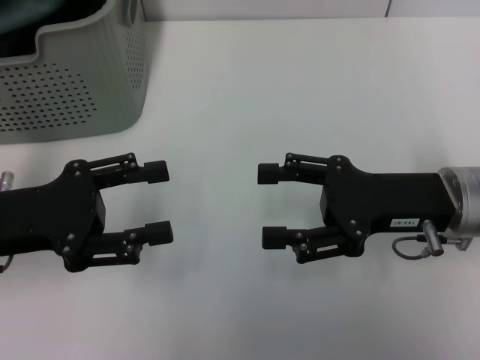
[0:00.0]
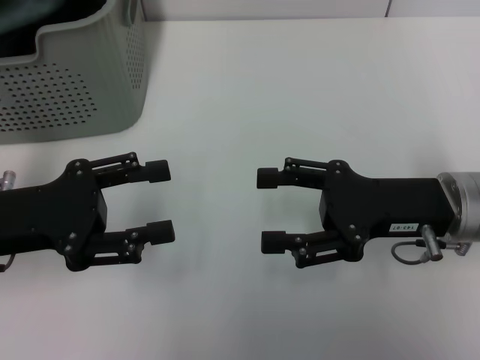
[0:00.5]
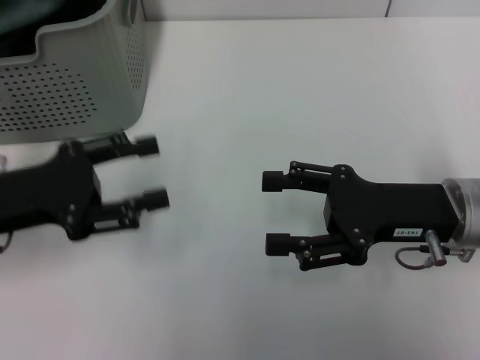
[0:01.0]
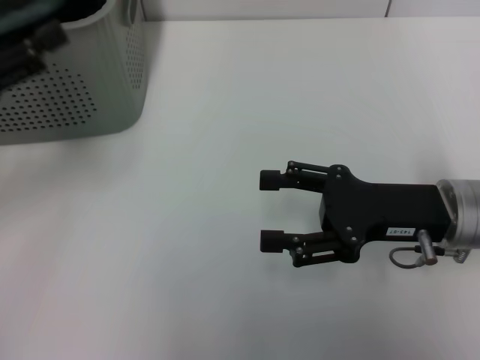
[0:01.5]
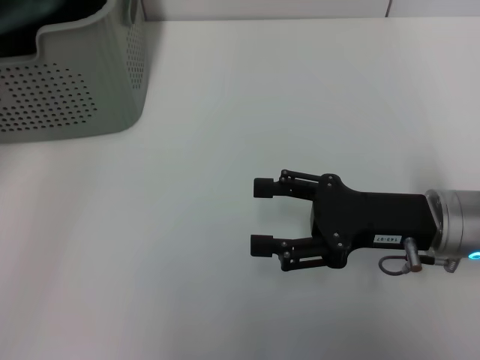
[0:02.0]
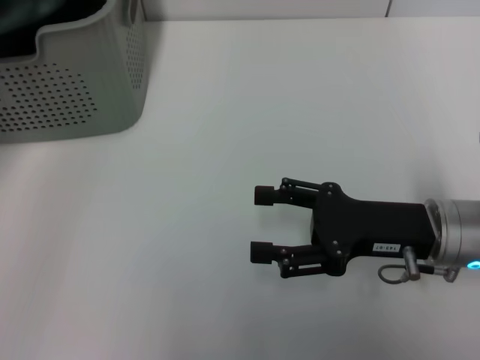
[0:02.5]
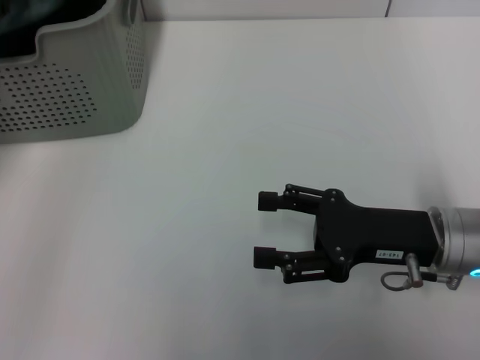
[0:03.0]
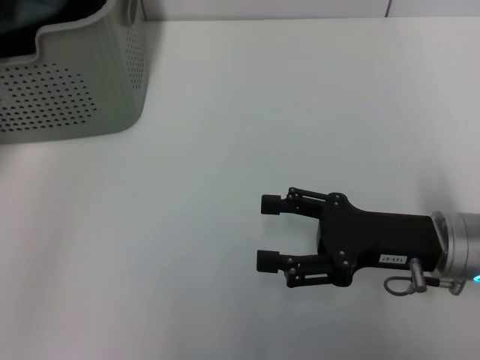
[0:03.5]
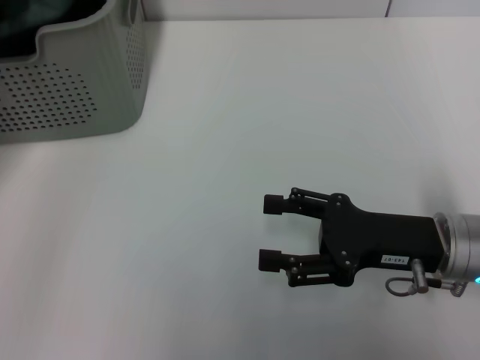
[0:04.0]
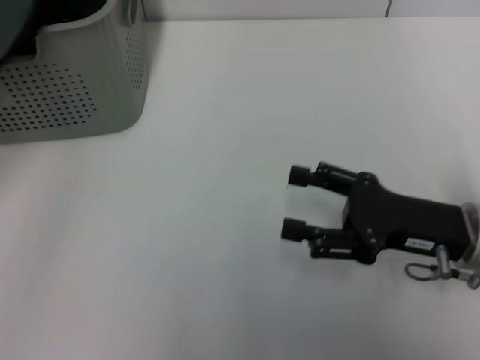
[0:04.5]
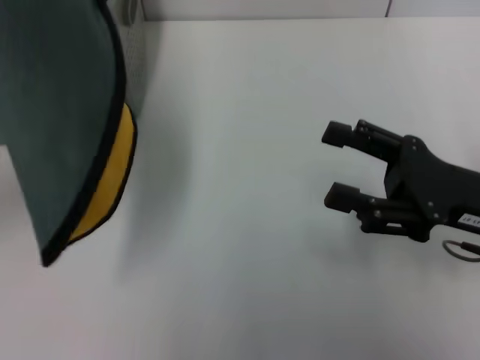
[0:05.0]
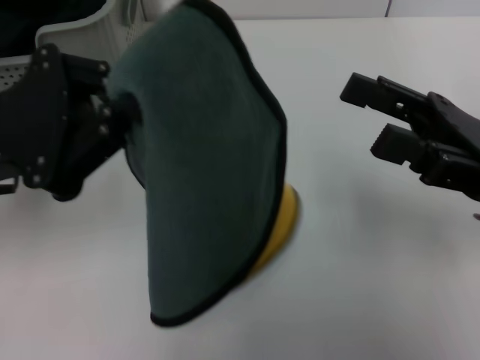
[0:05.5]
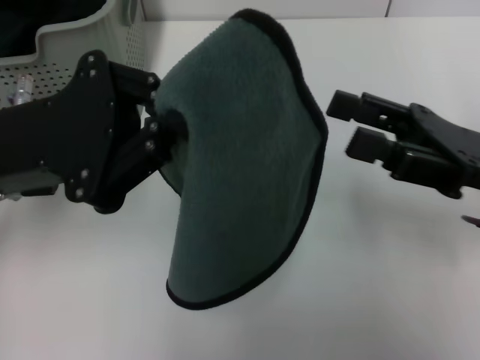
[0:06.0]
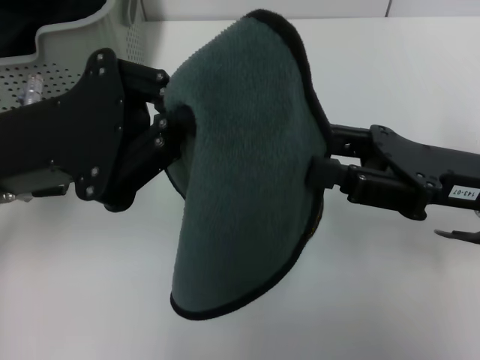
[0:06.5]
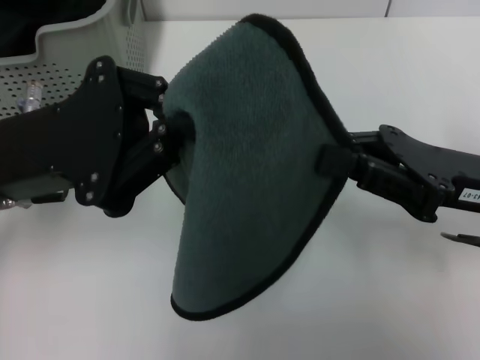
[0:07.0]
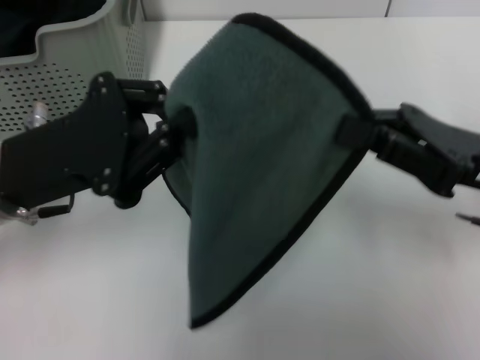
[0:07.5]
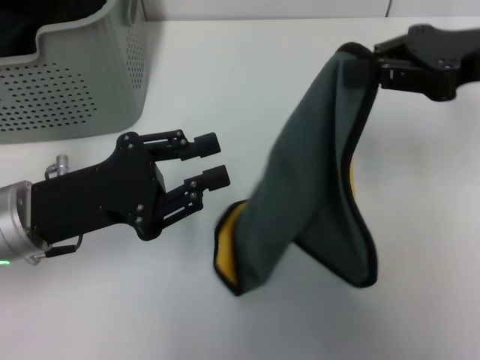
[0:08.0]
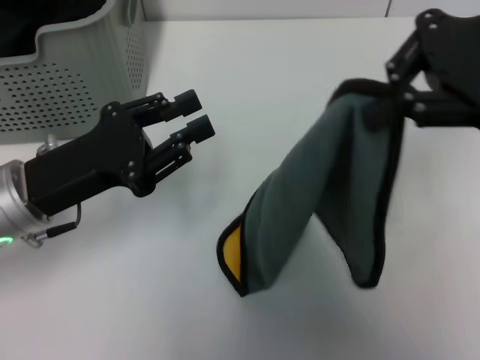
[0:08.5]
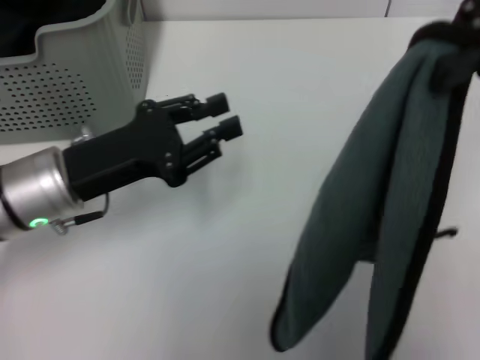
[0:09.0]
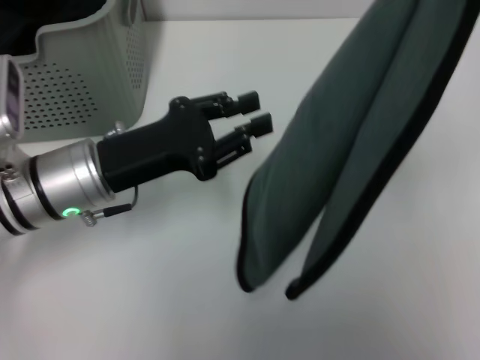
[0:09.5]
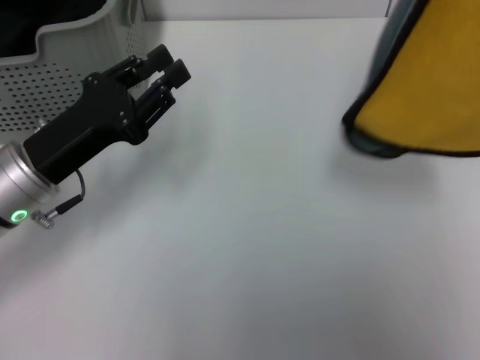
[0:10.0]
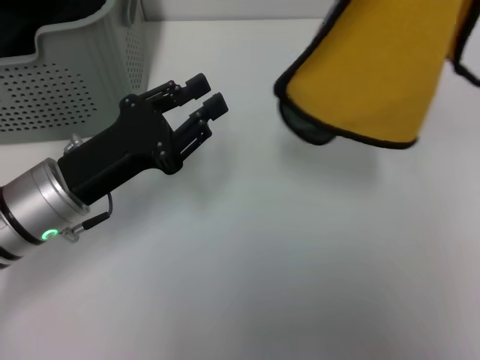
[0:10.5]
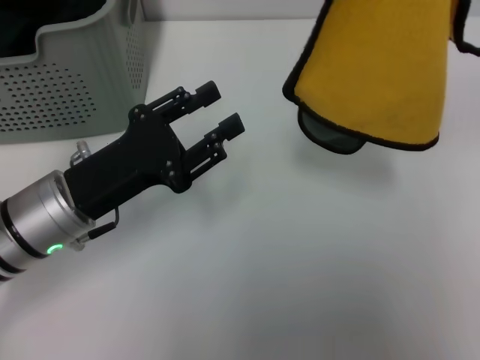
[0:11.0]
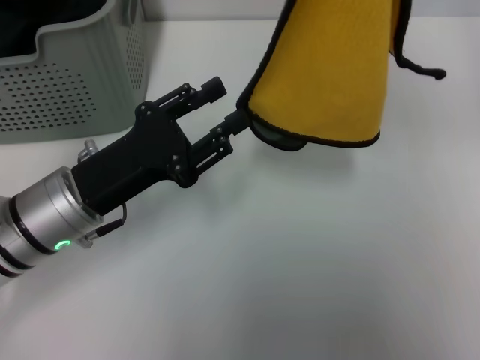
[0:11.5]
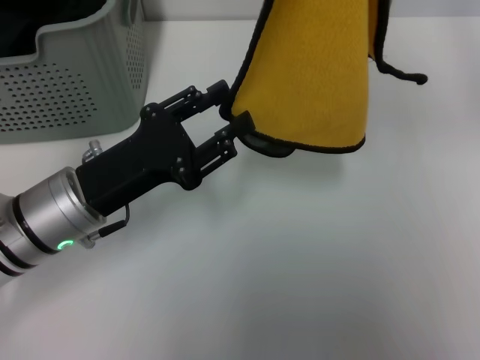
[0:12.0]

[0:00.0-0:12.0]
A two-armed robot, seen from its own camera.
Task of the whole recording: pick up the towel from the storage box and lay it flat on the table.
Step, 0:00.0 to 0:04.0: Pick up a towel with the left gripper.
0:00.0 to 0:02.0: The left gripper goes some 10 cm upward and to the left.
0:02.0 to 0:04.0: The left gripper heads forward, covering some 5 cm, and closes its fingers.
0:04.0 to 0:06.0: The left gripper is displaced to the right and backward by about 10 cm, and closes its fingers. The right gripper shifts roughly 5 cm upward.
0:06.0 to 0:08.0: The right gripper moves upward and forward, roughly 10 cm, and closes its fingers; the left gripper travels downward by roughly 5 cm, and opens up.
0:08.0 to 0:10.0: The right gripper moves upward and to the right, about 10 cm.
0:10.0 to 0:12.0: The right gripper goes about 5 cm to the left.

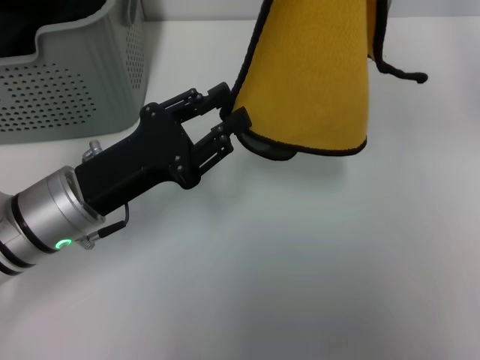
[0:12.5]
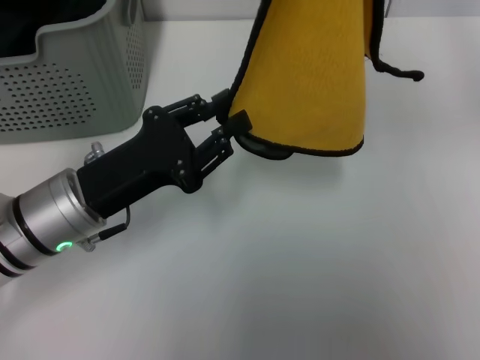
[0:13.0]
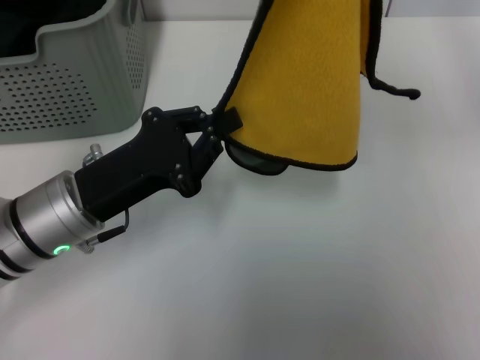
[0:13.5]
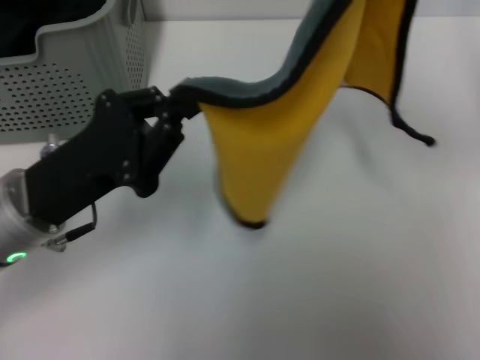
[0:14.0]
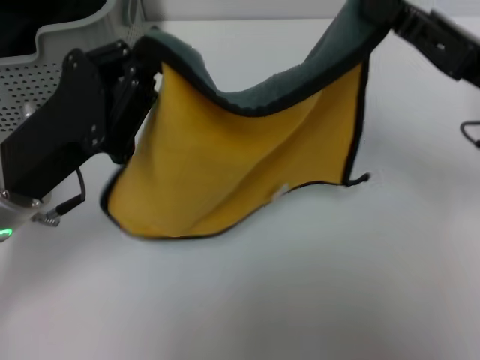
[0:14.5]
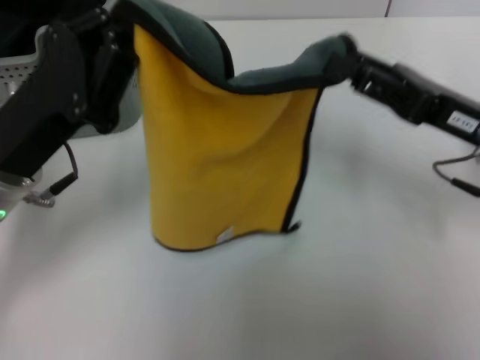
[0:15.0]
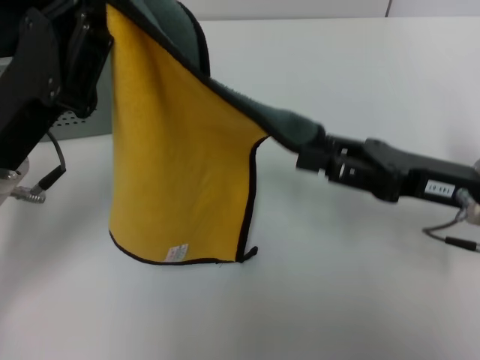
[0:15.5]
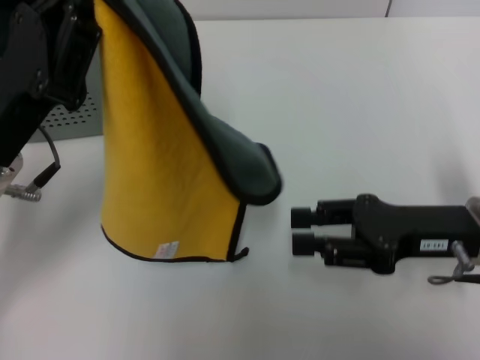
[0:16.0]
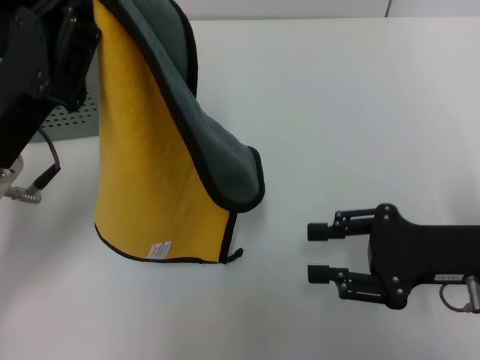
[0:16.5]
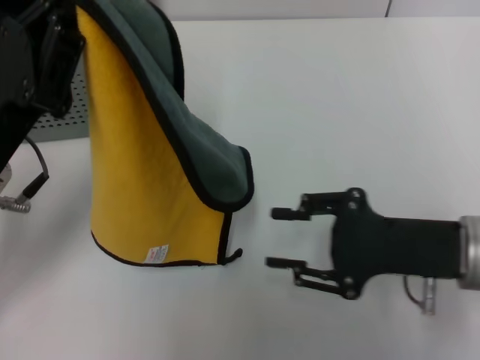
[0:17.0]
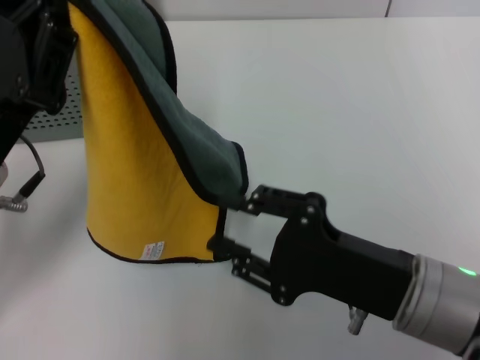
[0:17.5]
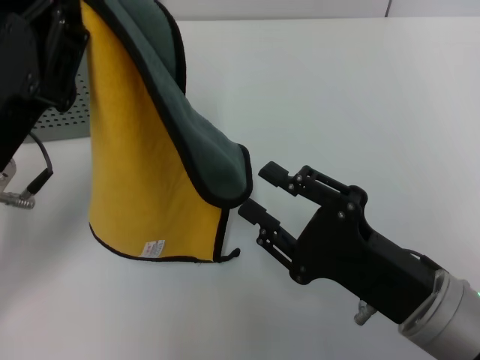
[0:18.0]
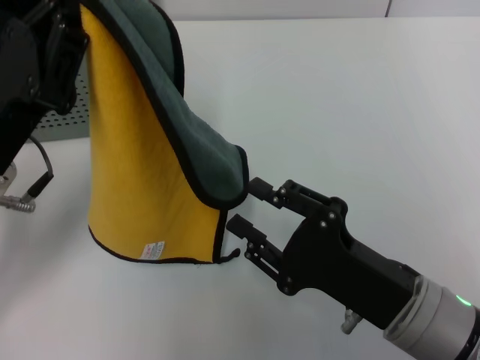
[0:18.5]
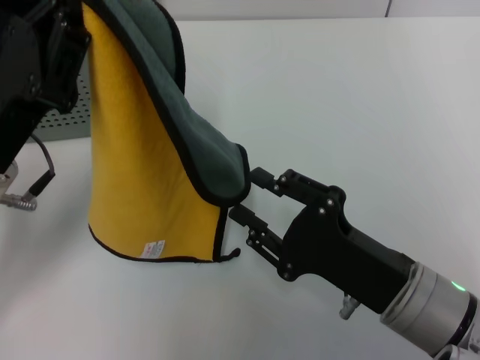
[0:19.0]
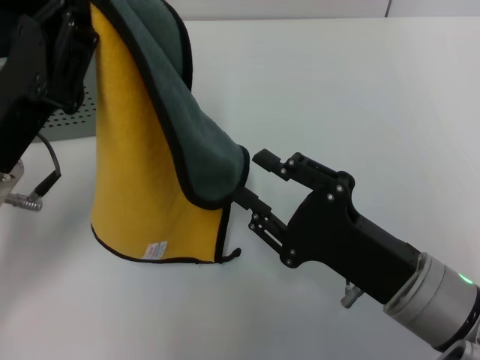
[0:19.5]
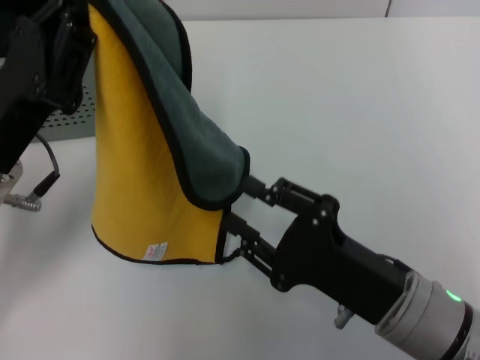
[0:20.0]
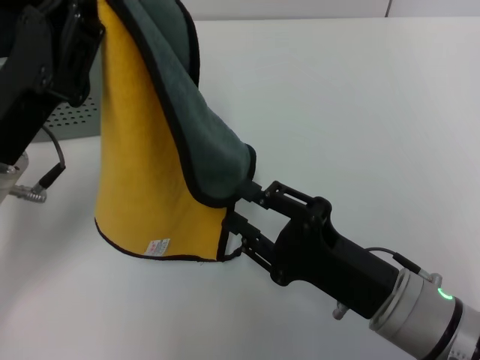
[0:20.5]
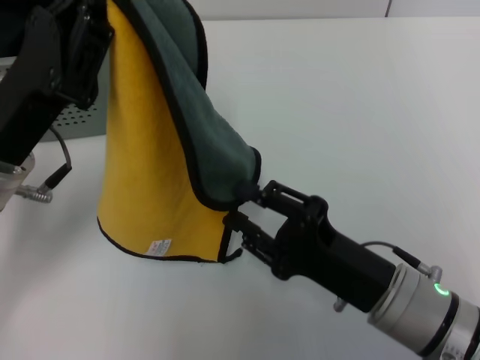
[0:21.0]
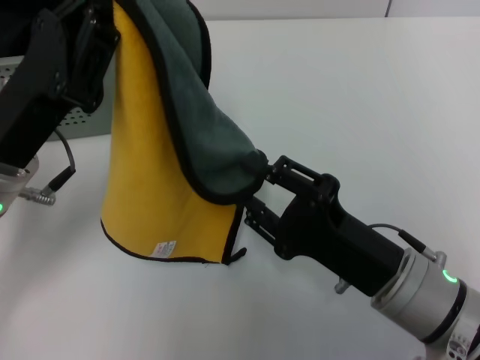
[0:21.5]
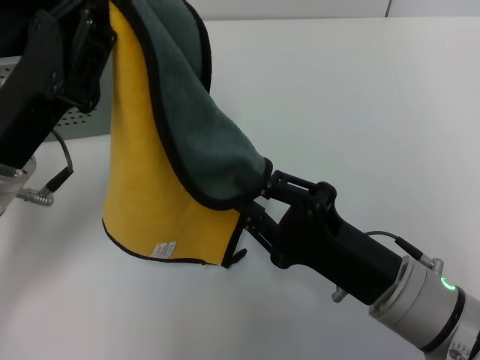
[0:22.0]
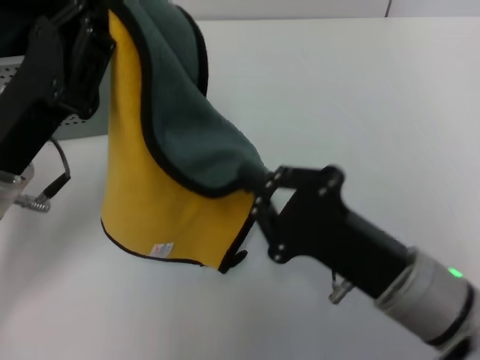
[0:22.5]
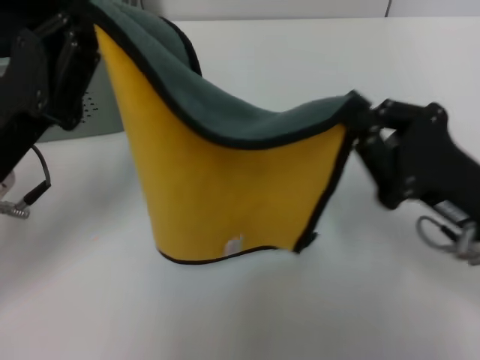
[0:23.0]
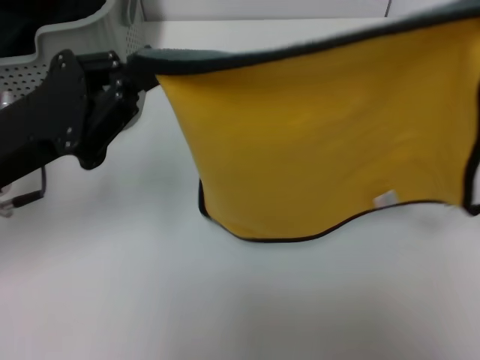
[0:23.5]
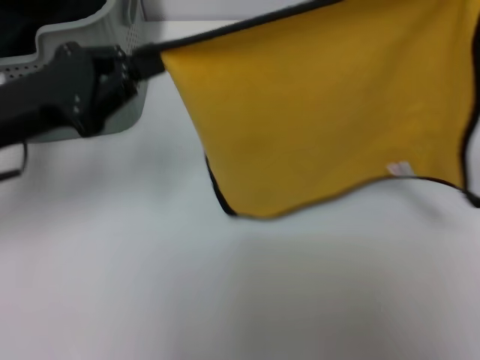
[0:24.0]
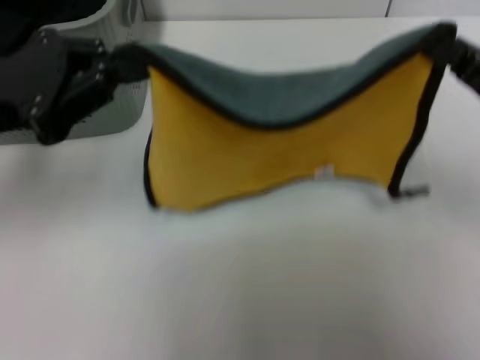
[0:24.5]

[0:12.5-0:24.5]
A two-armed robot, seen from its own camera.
Task of the whole recording: pick up the towel from the storage box and lay it flat on the table.
Step, 0:12.5 to 0:22.0: Spread the towel flat with the left gripper.
0:12.5 to 0:14.5: The left gripper closes up; the right gripper shifts some 15 cm downward.
0:14.5 to 0:16.5: The right gripper heads downward and backward, covering approximately 10 cm, and opens.
0:16.5 to 0:18.5: The right gripper goes about 10 cm to the left and backward.
0:18.5 to 0:22.5: The grippers move only a little.
0:22.5 to 0:24.5: The right gripper is displaced to the right, forward and upward by approximately 20 cm; the left gripper travels upward and to the left by approximately 10 cm.

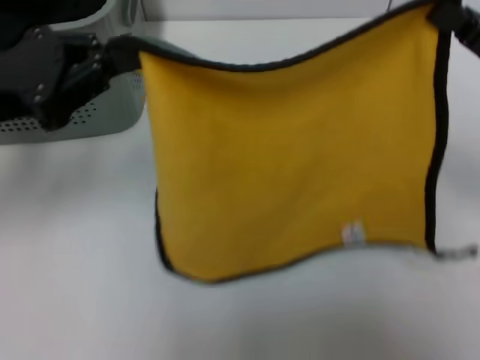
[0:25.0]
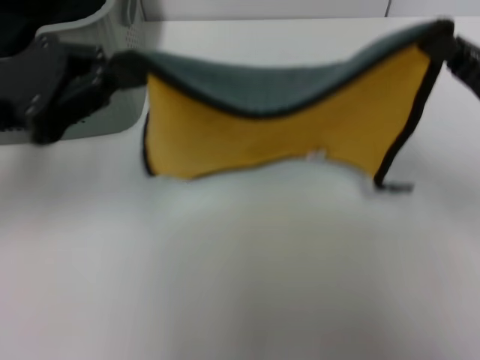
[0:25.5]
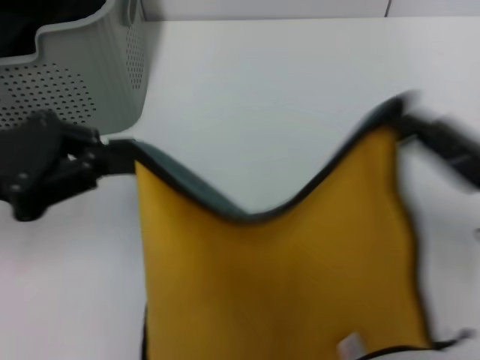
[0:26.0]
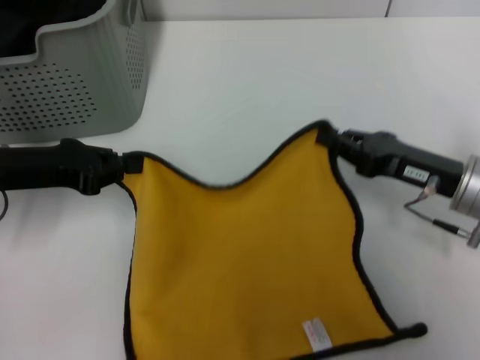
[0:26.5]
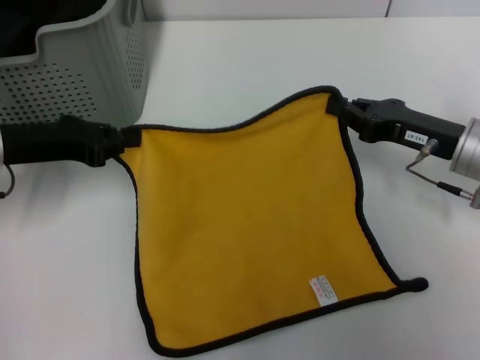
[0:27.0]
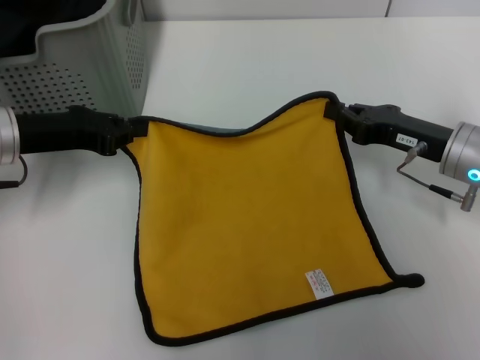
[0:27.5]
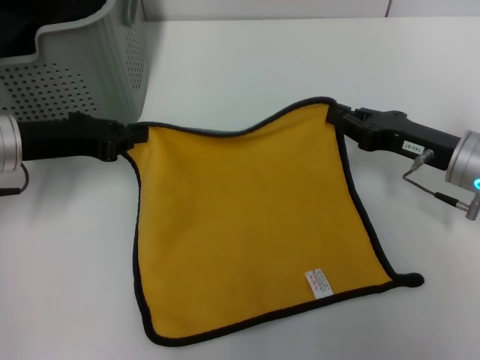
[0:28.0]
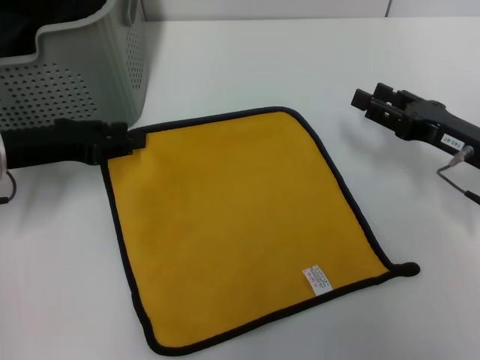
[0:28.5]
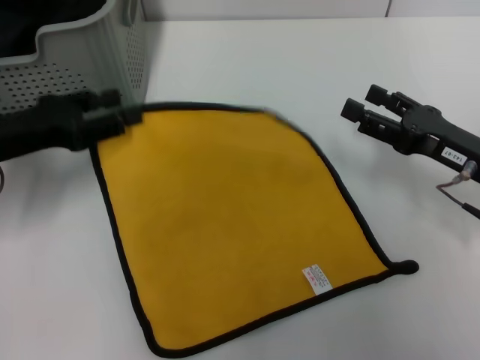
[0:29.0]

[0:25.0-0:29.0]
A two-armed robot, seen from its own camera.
Task of the whole recording: pick up the towel from the storage box and lay it flat on the table.
Step, 0:25.0 to 0:28.5: Spread the towel flat with the right gripper.
0:25.0 to 0:27.0: Both grippers travel together downward, about 5 cm.
0:27.0 to 0:29.0: The right gripper opens. The left gripper opens its fingers.
